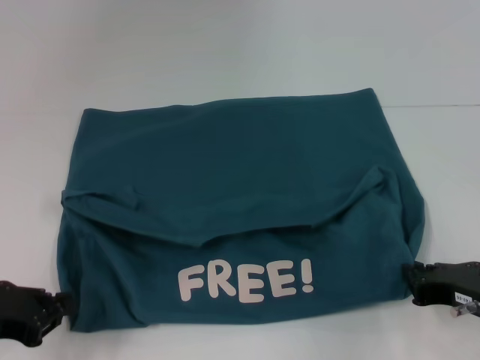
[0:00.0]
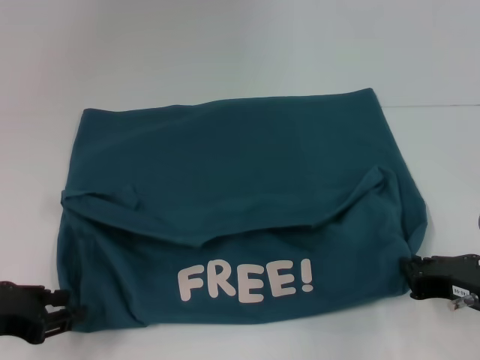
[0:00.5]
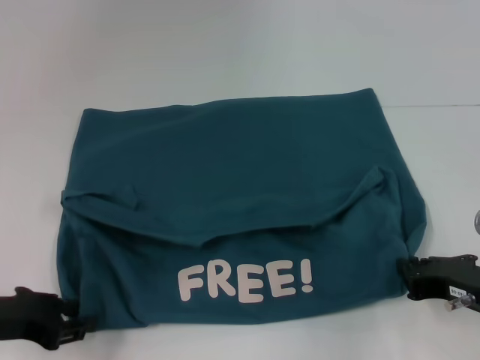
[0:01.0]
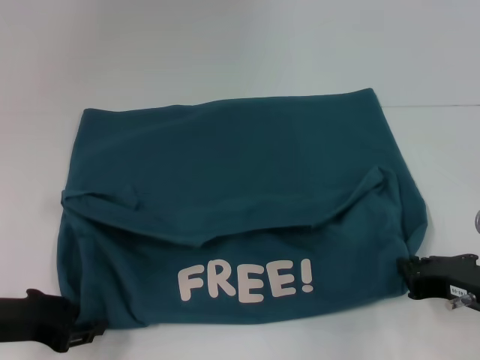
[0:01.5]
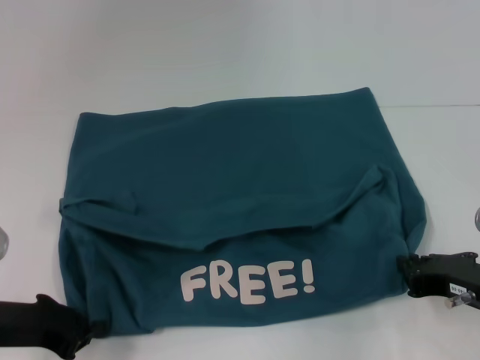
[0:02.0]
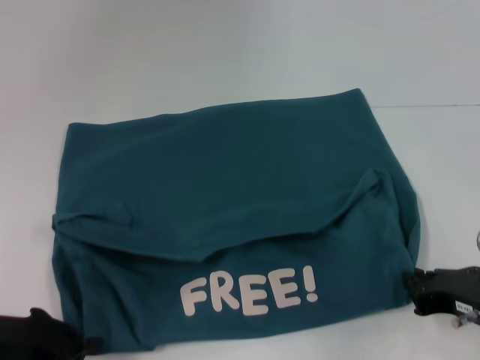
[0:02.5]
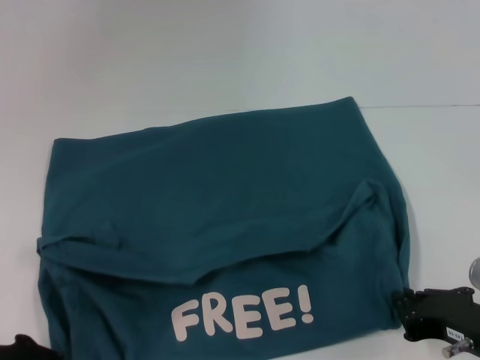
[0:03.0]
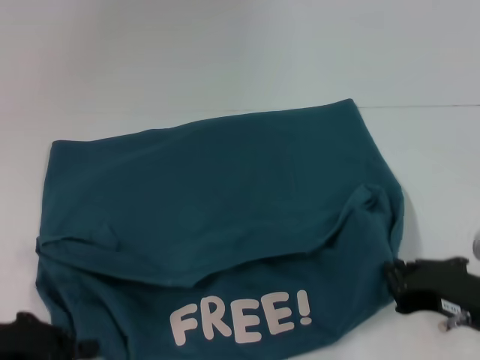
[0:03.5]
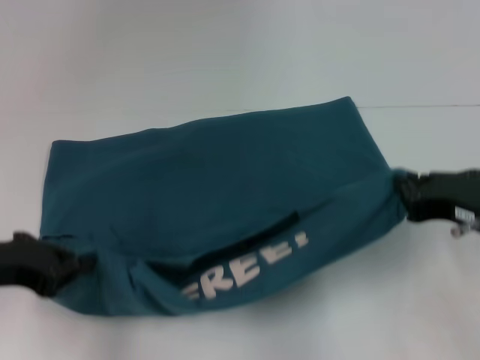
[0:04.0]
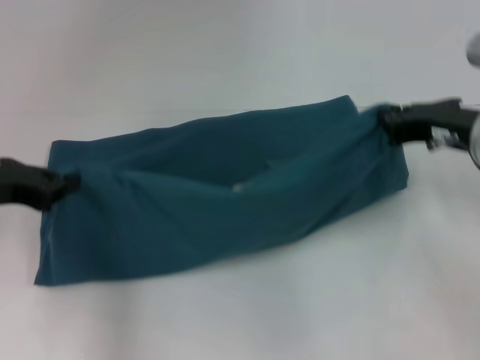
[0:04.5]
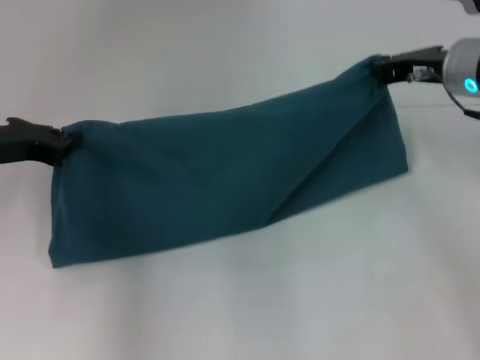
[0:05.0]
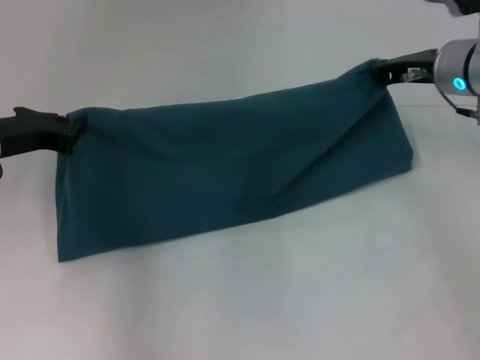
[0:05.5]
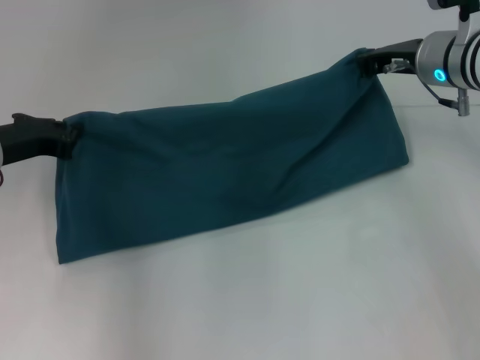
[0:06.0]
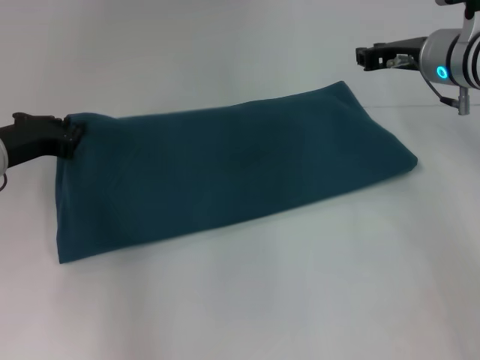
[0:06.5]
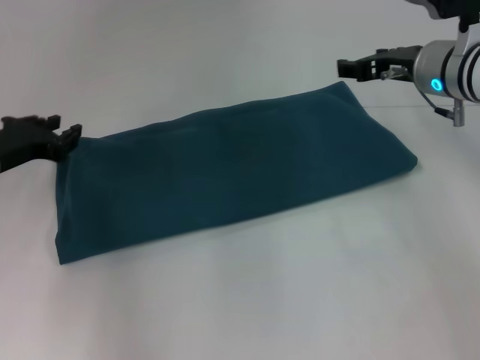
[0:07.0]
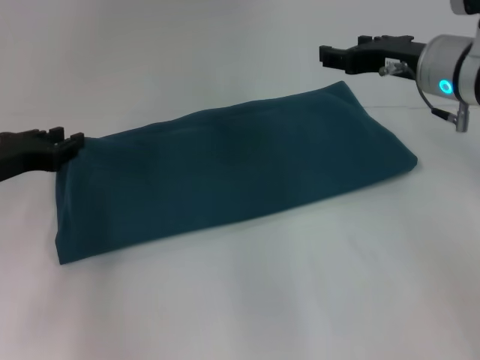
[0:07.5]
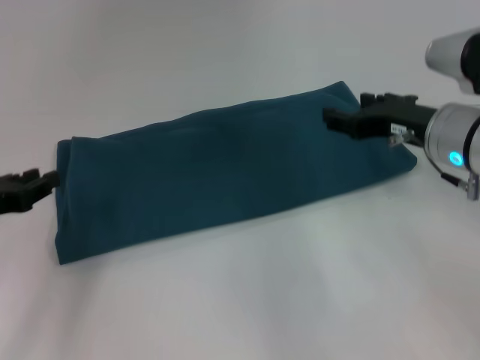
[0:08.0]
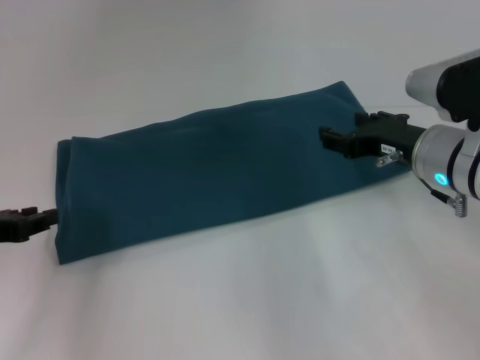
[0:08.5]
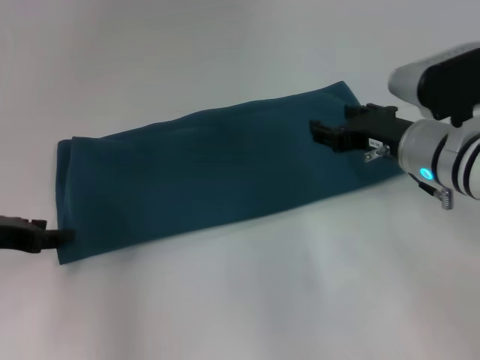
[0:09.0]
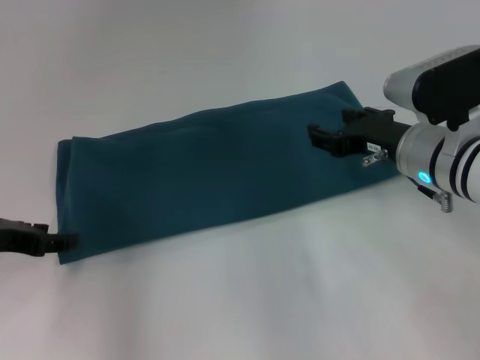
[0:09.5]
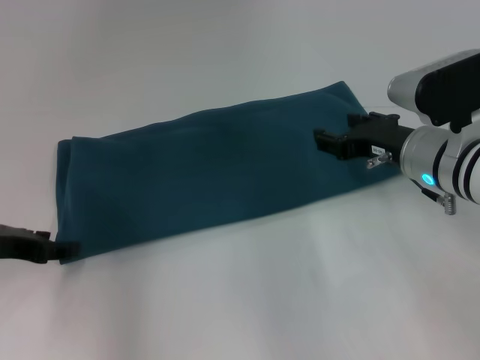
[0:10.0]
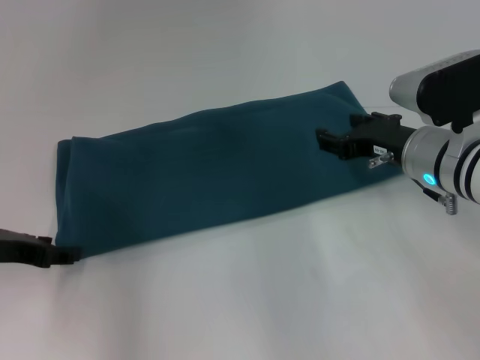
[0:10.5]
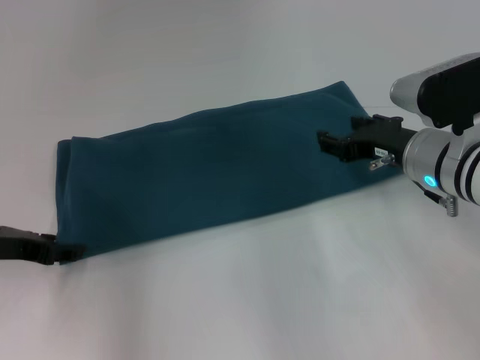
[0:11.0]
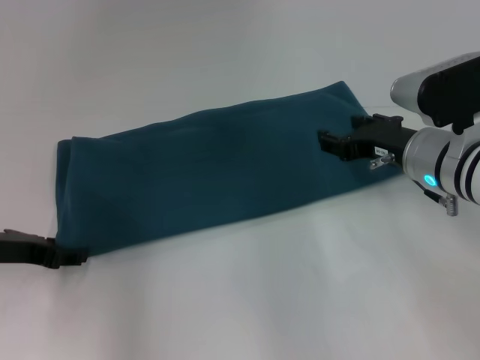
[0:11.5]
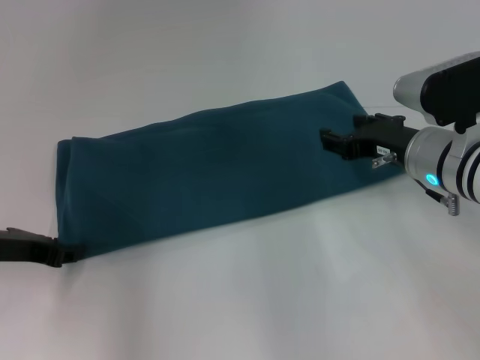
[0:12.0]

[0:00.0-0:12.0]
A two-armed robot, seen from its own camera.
Step, 0:00.0 to 0:03.0: Pull the clothes with your left hand.
Step, 0:00.0 to 0:03.0: Pull the clothes with your right hand.
Step, 0:03.5 to 0:06.5: Fold the clothes to the left.
Step, 0:03.5 to 0:06.5: Fold the clothes to the right.
0:00.0 to 0:02.0: The grippers stay close to where they were, moving slightly.
0:02.0 to 0:04.0: The grippers both shift upward by roughly 5 cm.
0:04.0 to 0:06.0: The right gripper goes roughly 20 cm forward, while the left gripper goes roughly 10 cm forward.
0:06.0 to 0:08.0: The two grippers go roughly 10 cm backward. The right gripper opens; the left gripper opens.
0:10.0 to 0:12.0: The grippers stay close to where they were, moving slightly.

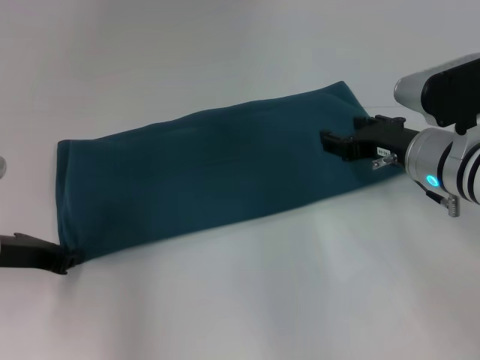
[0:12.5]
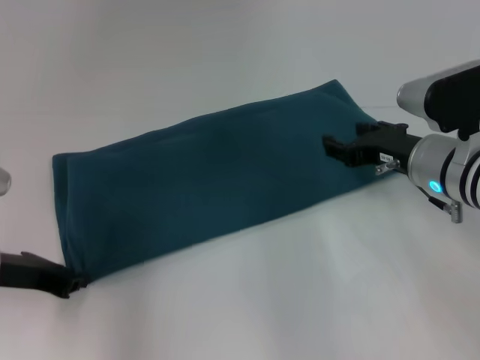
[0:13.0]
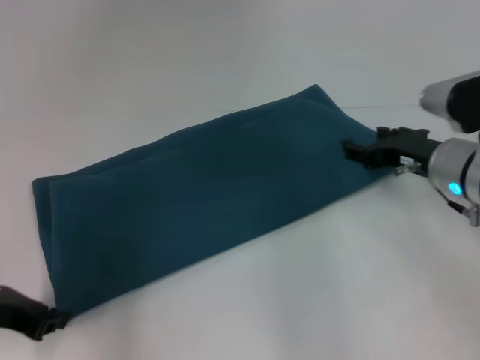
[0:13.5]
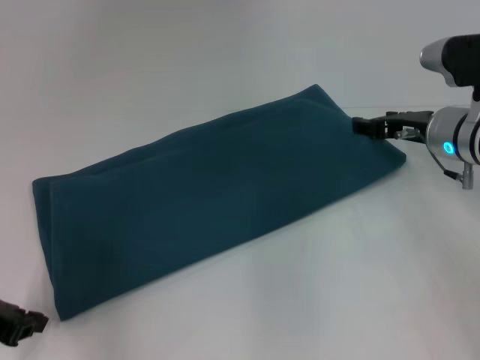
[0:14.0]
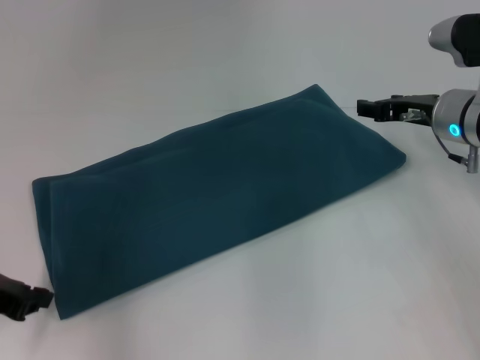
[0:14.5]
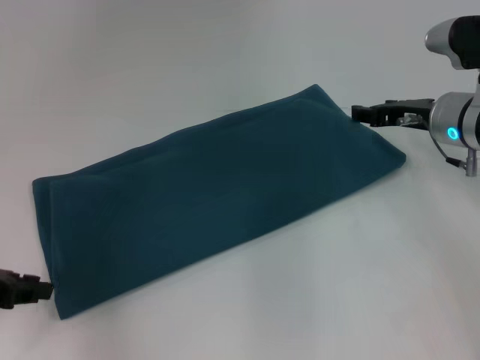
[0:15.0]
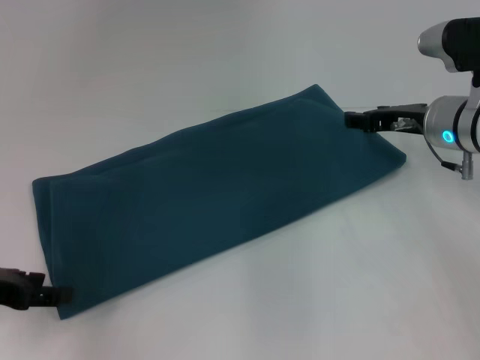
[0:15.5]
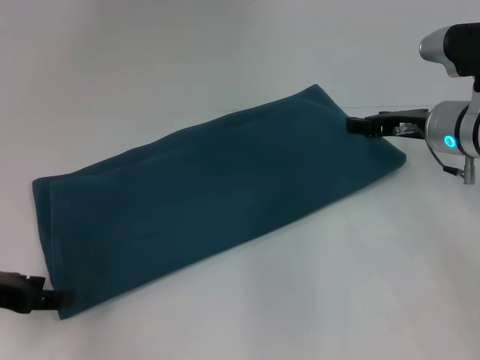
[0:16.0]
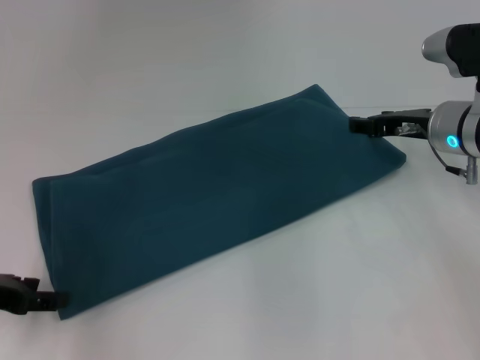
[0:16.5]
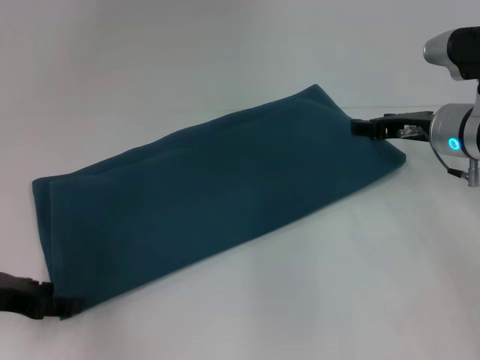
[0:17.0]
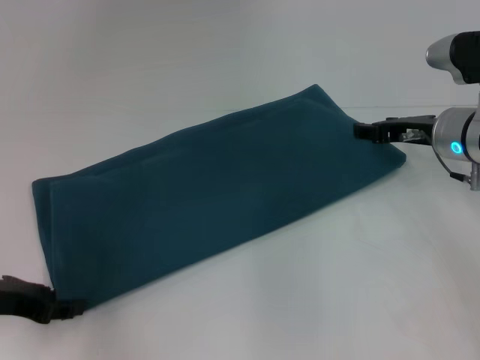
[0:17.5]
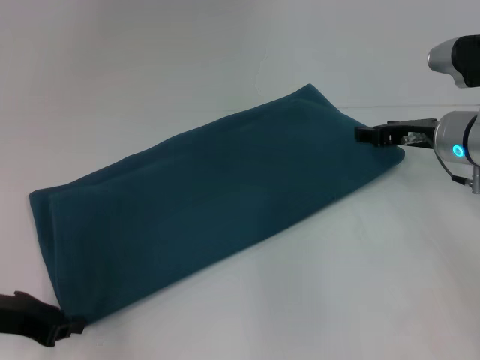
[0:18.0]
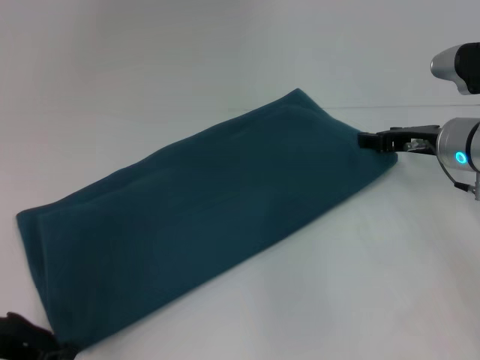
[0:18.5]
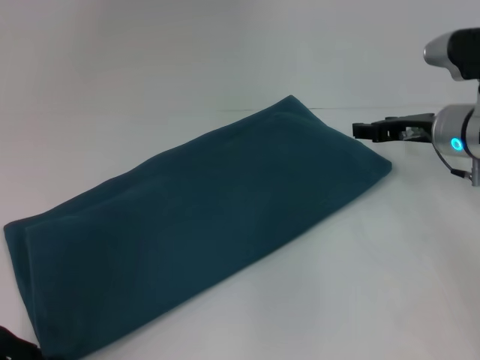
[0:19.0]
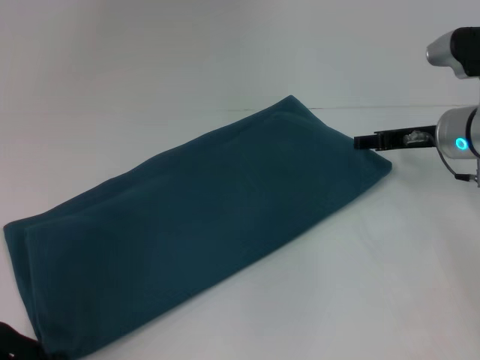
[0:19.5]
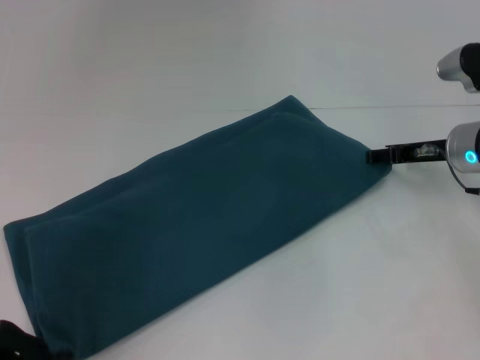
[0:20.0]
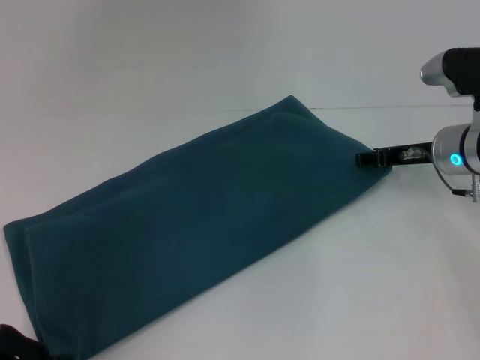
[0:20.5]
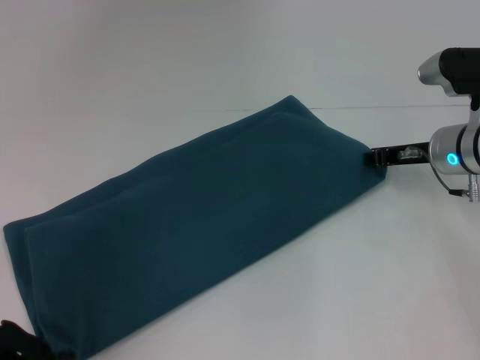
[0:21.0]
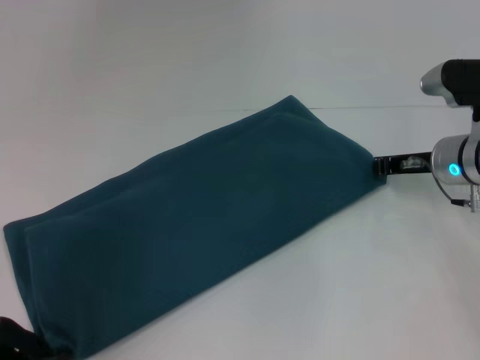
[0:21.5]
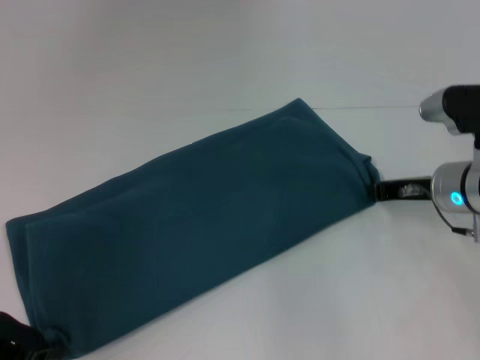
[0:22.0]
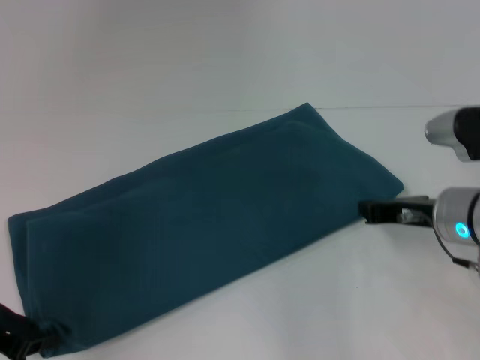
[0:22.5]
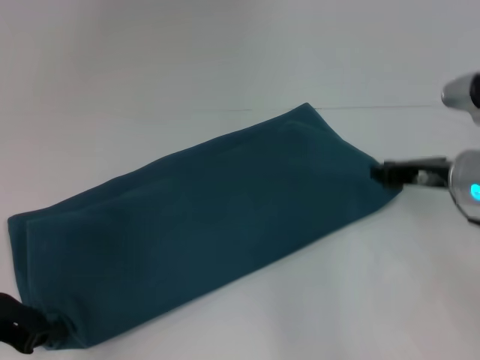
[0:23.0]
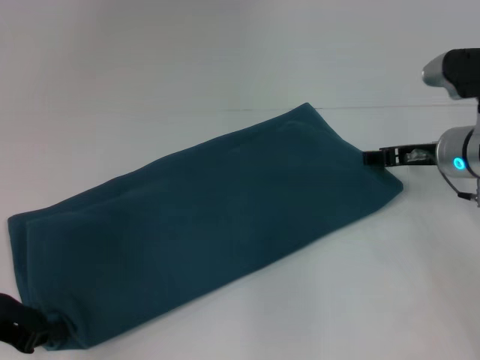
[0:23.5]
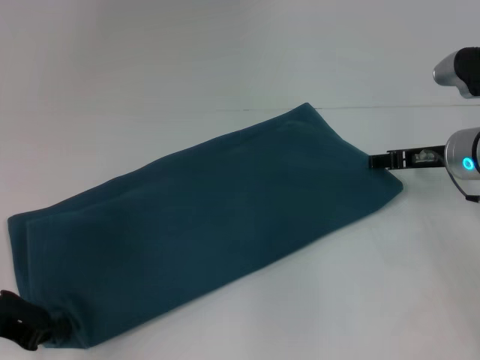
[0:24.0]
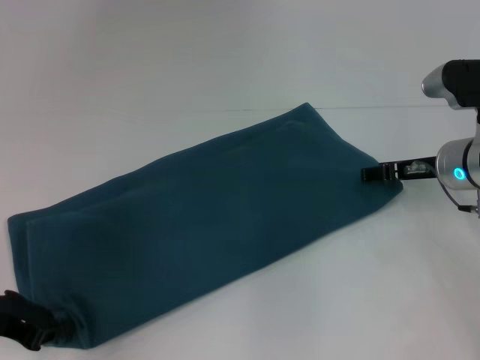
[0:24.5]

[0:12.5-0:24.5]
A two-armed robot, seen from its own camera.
0:12.5 to 0:14.5: The left gripper shifts by some 5 cm; the right gripper heads forward, covering approximately 5 cm.
0:16.5 to 0:18.5: The left gripper closes its fingers.
0:18.5 to 0:20.5: The grippers move only a little.
0:20.5 to 0:22.5: The right gripper travels backward by approximately 10 cm, and closes up.
0:22.5 to 0:24.5: The right gripper goes about 5 cm forward, and opens.

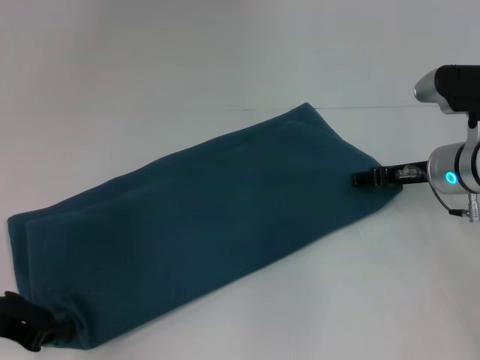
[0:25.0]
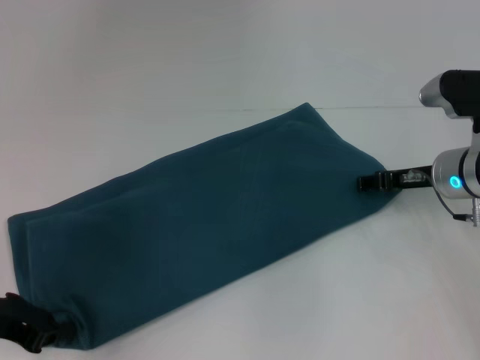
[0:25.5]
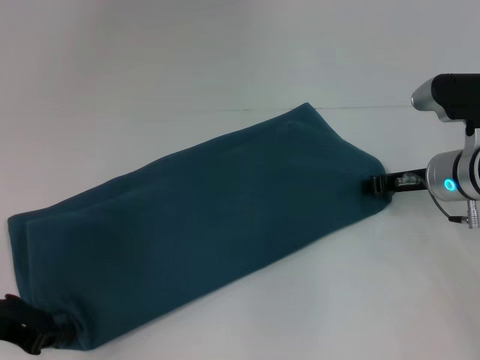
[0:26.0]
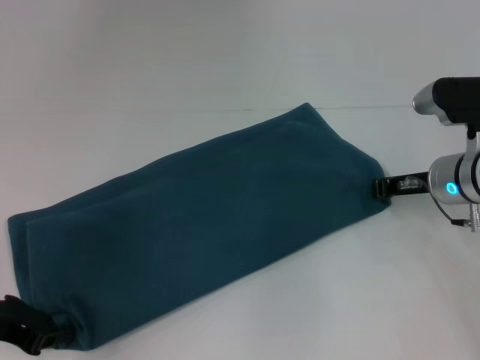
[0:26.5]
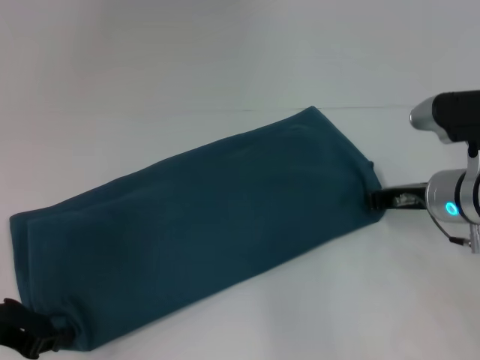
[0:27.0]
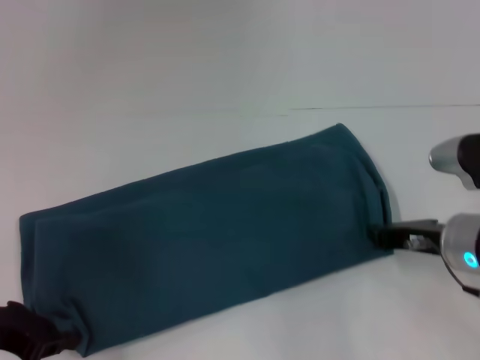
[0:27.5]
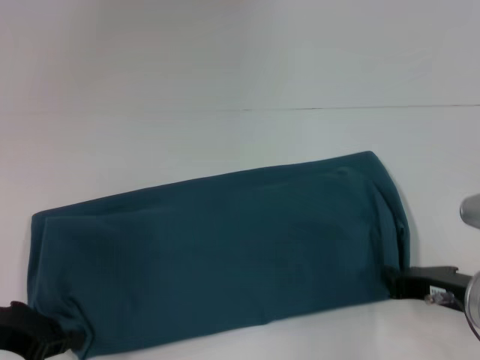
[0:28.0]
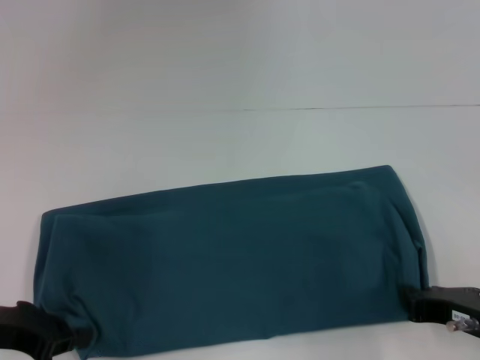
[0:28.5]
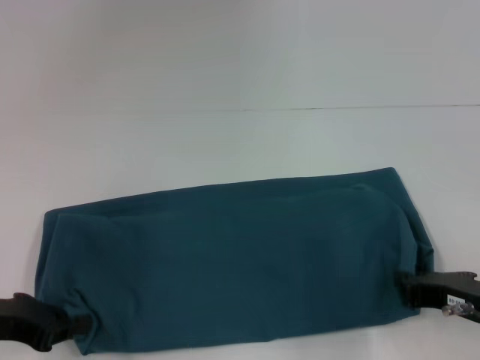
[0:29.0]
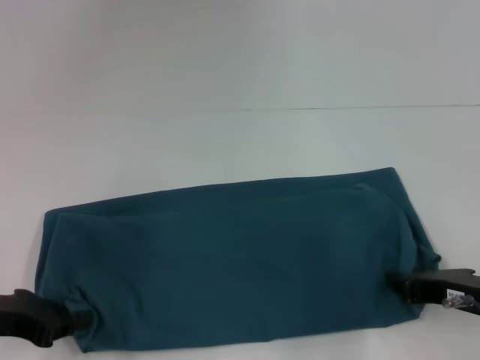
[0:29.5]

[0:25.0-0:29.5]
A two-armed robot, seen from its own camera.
0:25.0 to 0:27.0: The right gripper closes.
0:27.0 to 0:29.5: The right gripper heads backward, covering approximately 15 cm.
